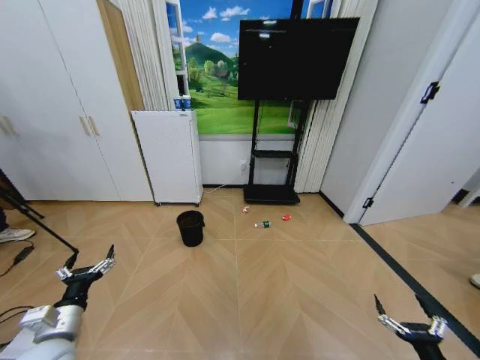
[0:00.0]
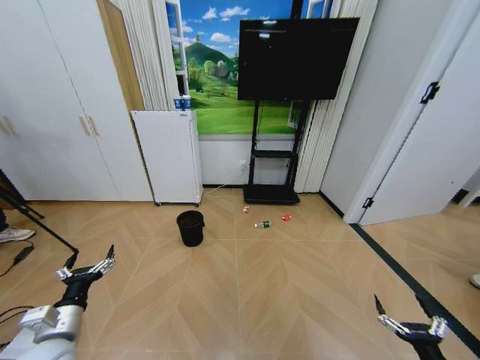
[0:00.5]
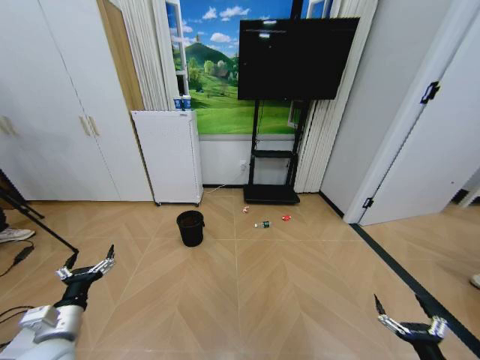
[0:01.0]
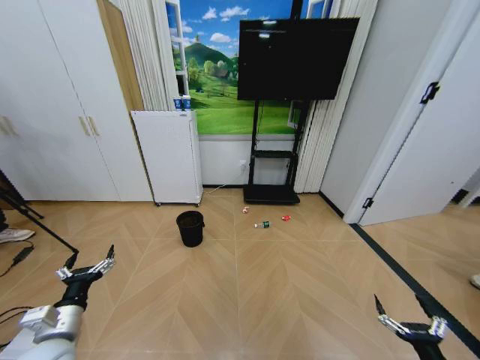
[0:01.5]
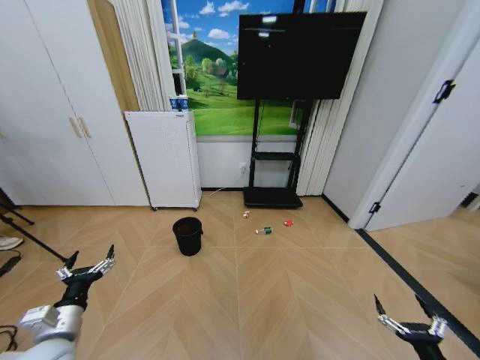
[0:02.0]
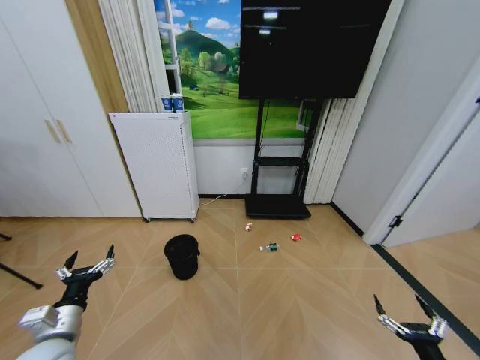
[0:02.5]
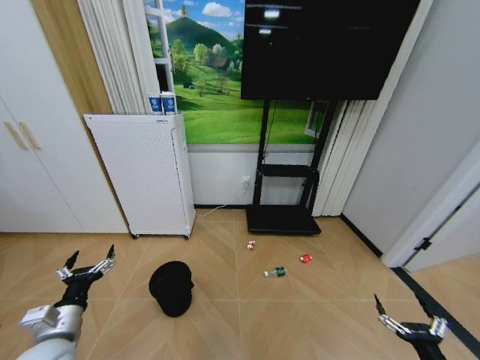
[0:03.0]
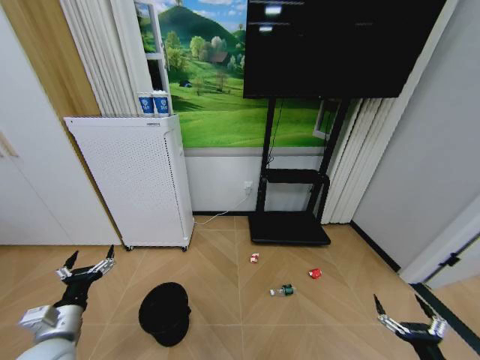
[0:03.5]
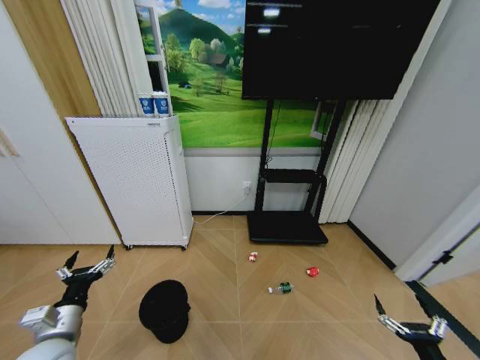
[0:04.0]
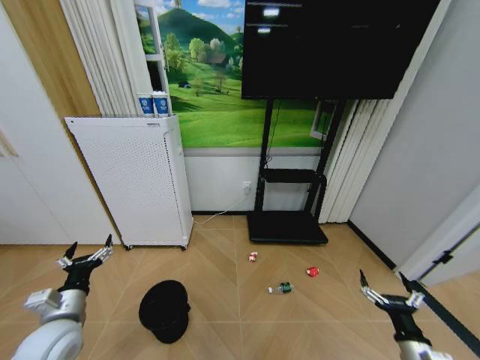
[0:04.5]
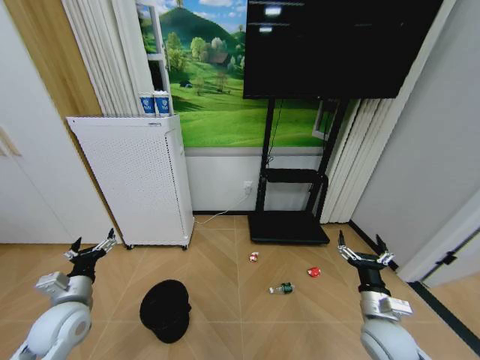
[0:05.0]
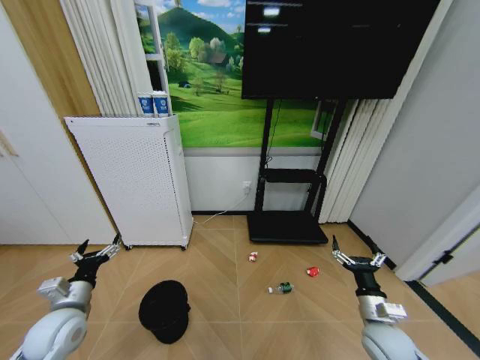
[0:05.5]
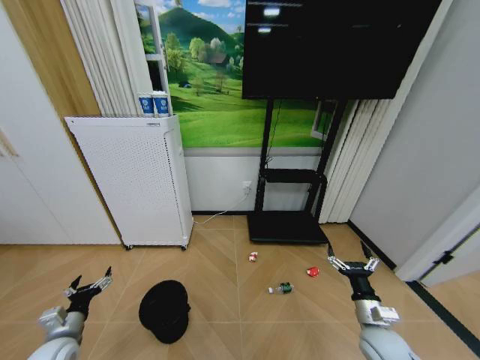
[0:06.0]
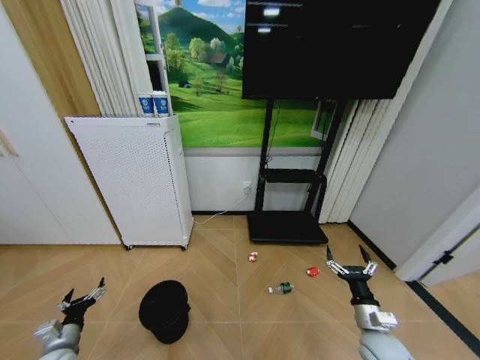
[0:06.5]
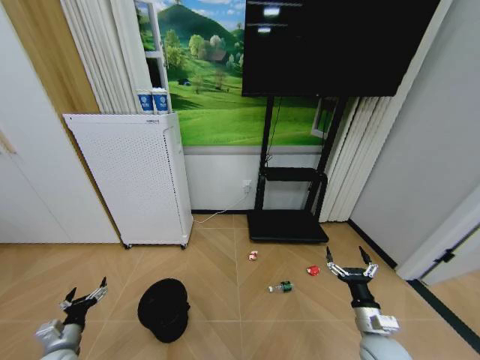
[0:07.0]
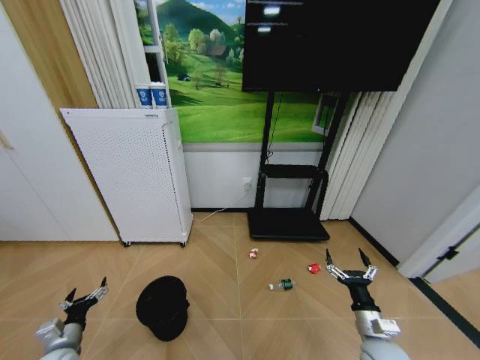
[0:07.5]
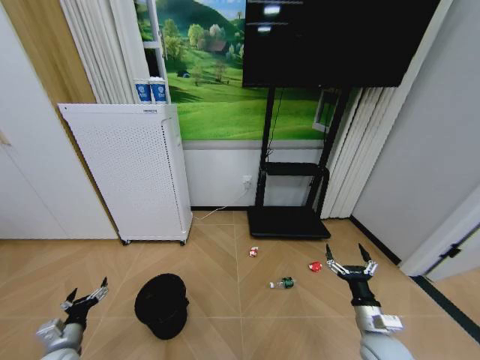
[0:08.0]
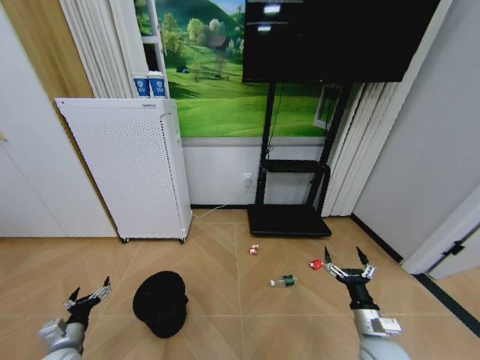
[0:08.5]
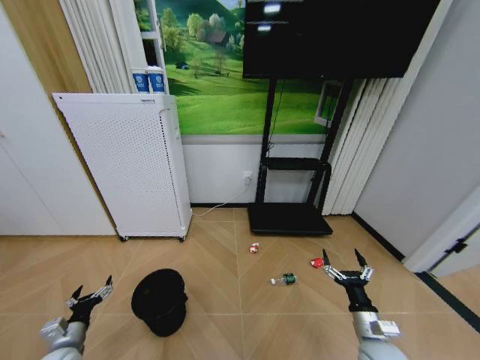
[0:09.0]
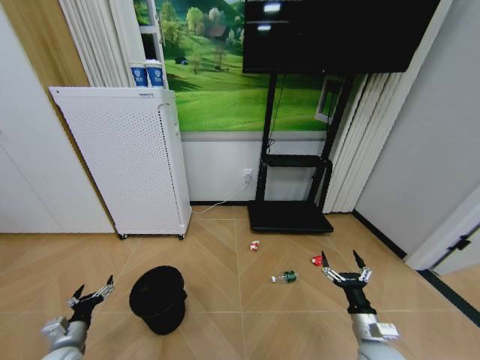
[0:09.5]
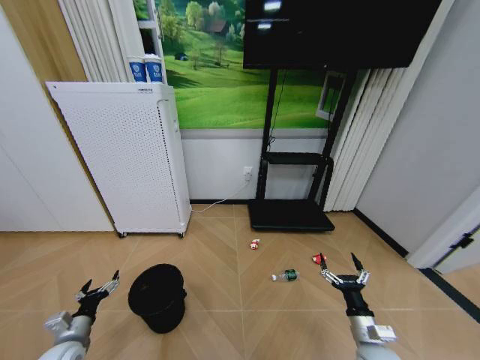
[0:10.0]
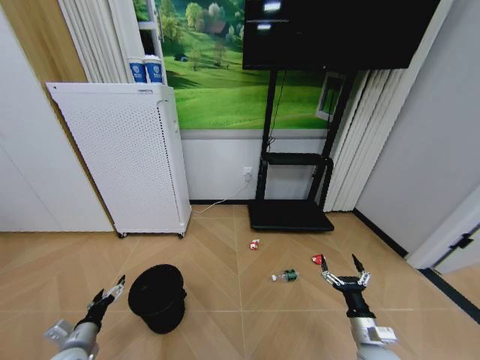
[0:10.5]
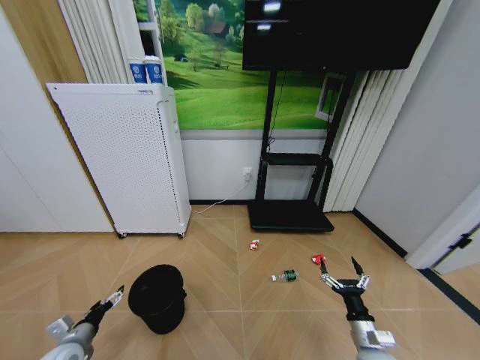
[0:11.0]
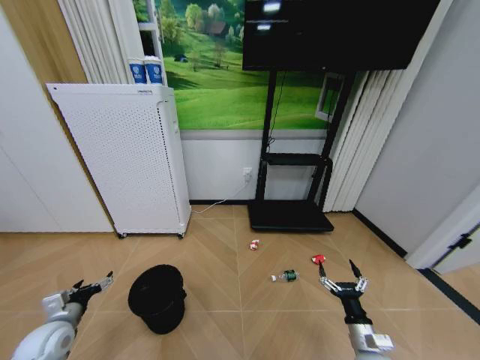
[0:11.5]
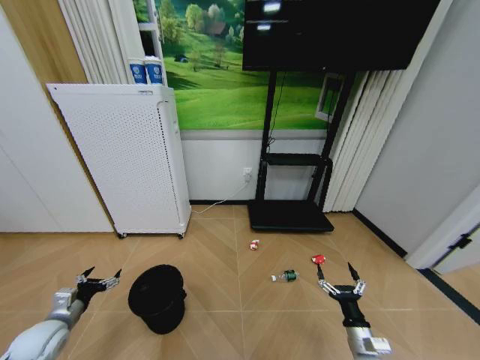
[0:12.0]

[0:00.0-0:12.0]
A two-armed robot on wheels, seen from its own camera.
Task of the whole recording: Pick up the trash bin and place the garbage on the floor into it.
4.0 to 6.0 s: The right gripper is displaced forward and to the left by approximately 20 cm. The left gripper heads downward and to the left, covering approximately 10 cm.
6.0 to 8.0 s: The grippers stay close to where they were, moving slightly.
10.0 to 12.0 s: The left gripper goes some 5 cm upward.

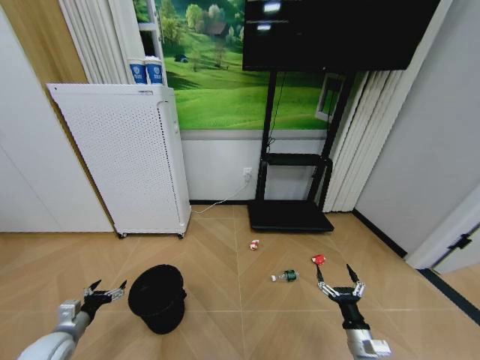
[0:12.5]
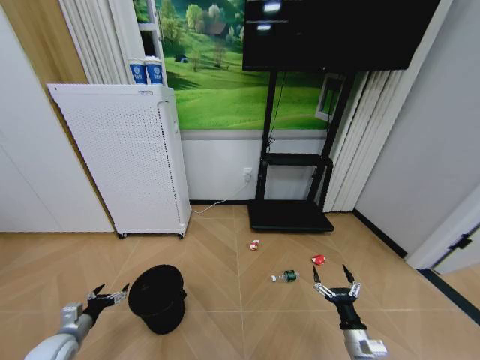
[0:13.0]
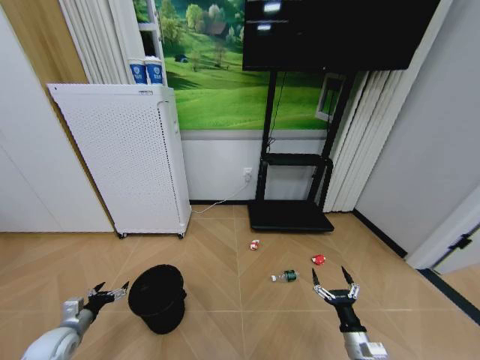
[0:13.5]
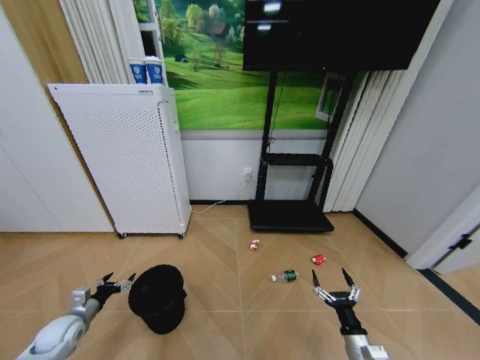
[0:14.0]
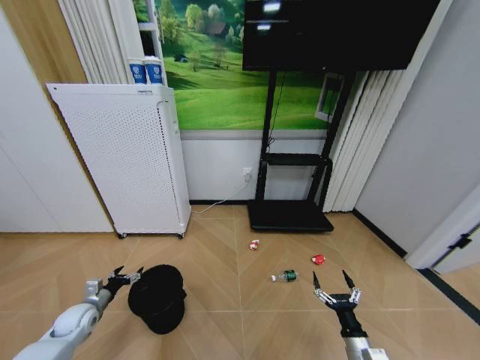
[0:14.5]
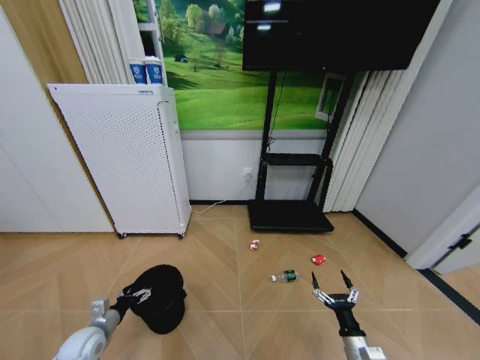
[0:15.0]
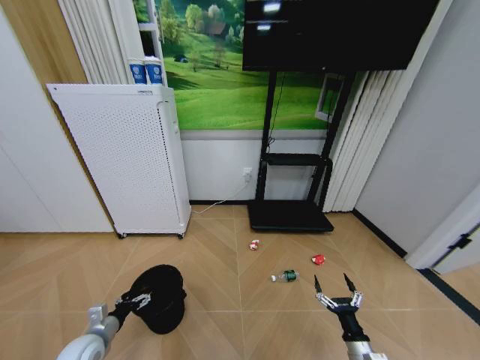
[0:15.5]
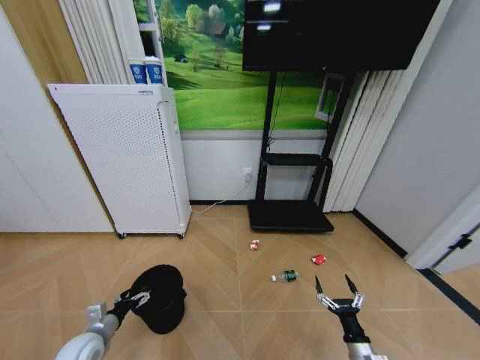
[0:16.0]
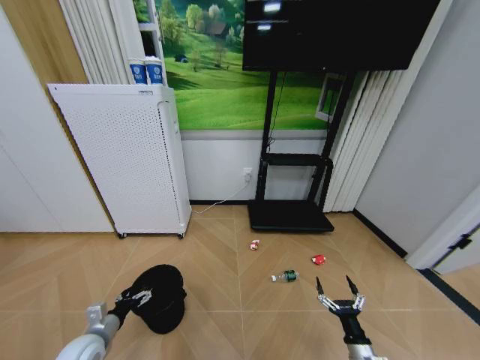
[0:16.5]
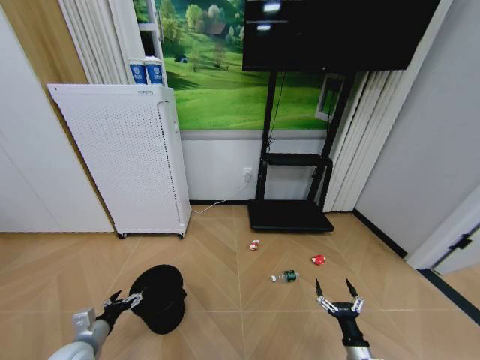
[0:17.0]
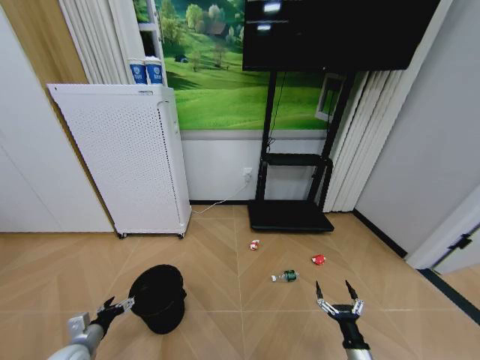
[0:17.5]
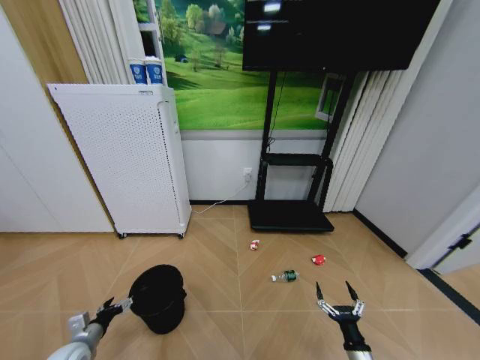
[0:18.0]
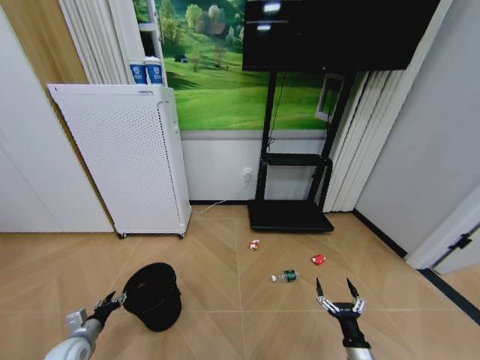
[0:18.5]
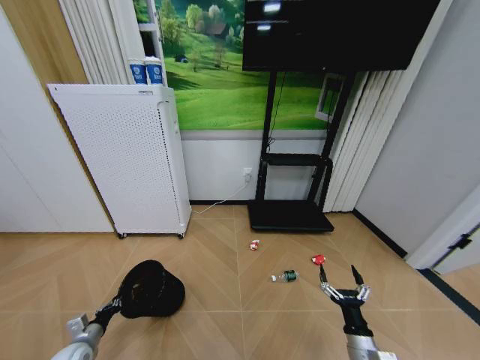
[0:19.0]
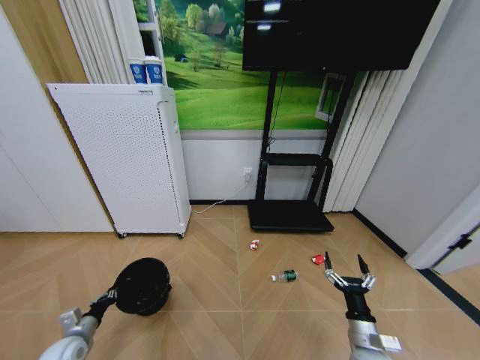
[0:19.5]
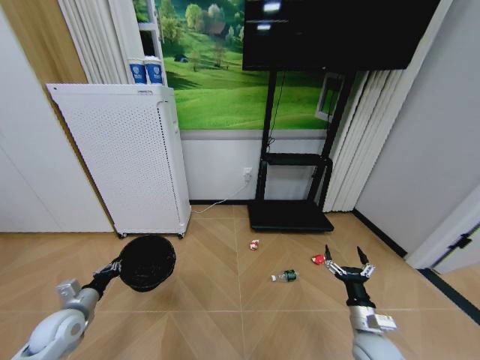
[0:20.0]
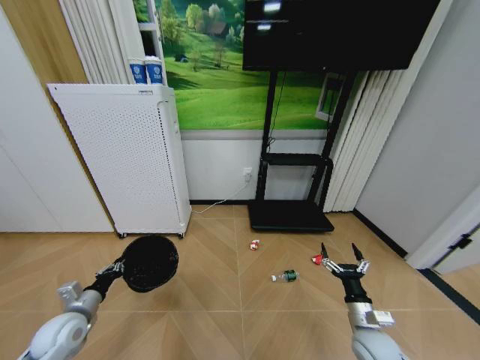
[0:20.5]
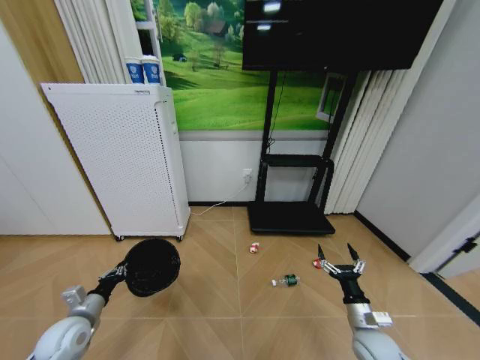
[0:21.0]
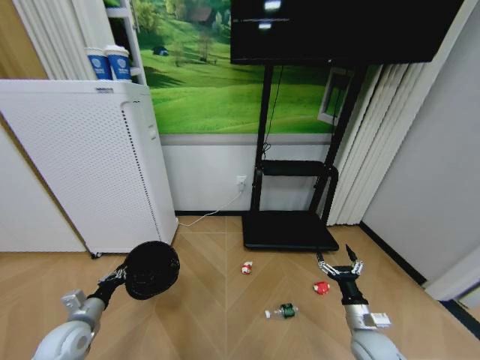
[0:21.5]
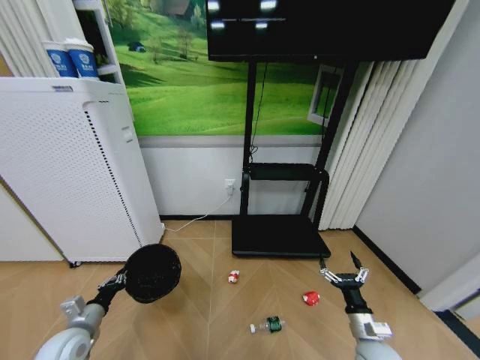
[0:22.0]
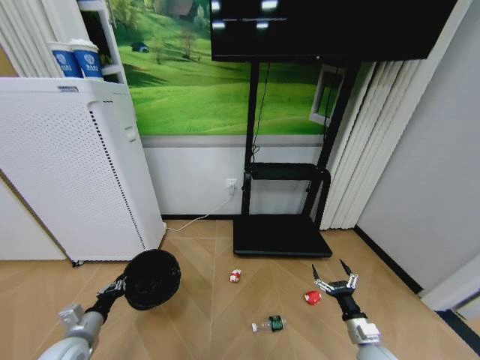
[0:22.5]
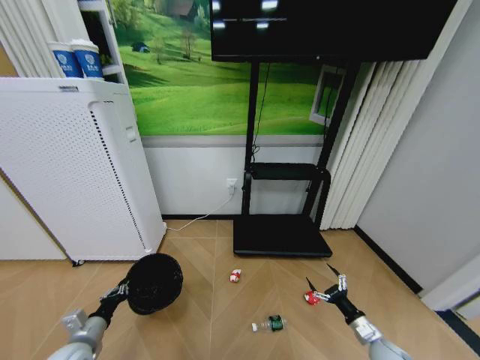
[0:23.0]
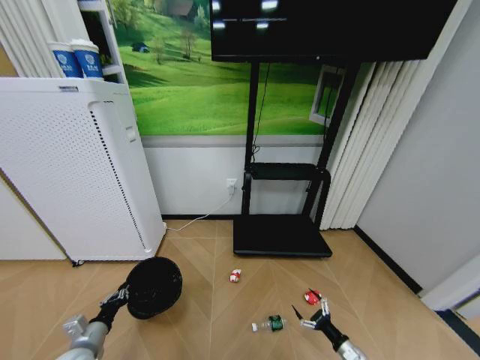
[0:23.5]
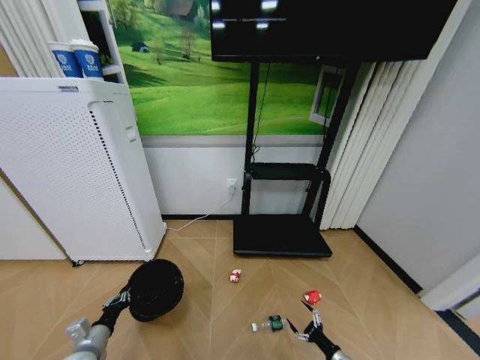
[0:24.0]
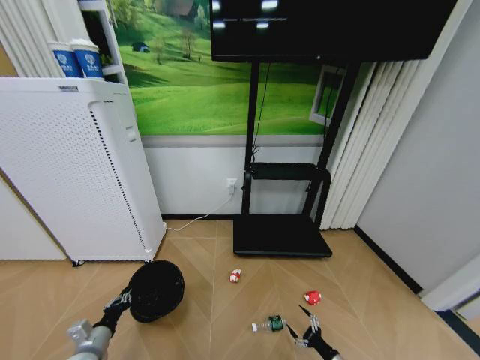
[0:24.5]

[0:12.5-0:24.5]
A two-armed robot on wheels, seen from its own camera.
Task of the whole recording: Pick up the trash bin and place the garbage on the floor into it.
12.5 to 14.5 s: The left gripper goes about 10 cm forward.
14.5 to 16.5 s: The left gripper goes approximately 10 cm backward and to the right.
16.5 to 18.5 s: The left gripper goes some 10 cm to the left and downward.
18.5 to 20.5 s: The right gripper goes approximately 10 cm upward and forward, while the left gripper travels upward by about 10 cm, and closes.
20.5 to 22.5 s: The right gripper goes approximately 5 cm downward. Meanwhile the left gripper ends up roughly 5 cm from where it was.
22.5 to 24.5 s: The left gripper shifts by roughly 5 cm; the right gripper shifts about 15 cm downward.

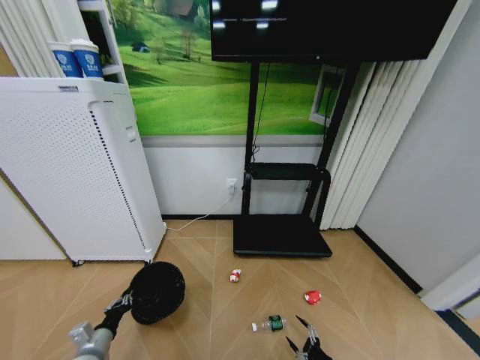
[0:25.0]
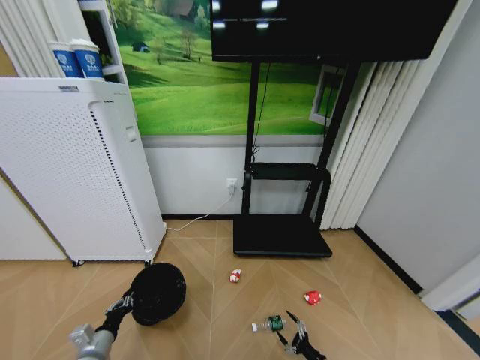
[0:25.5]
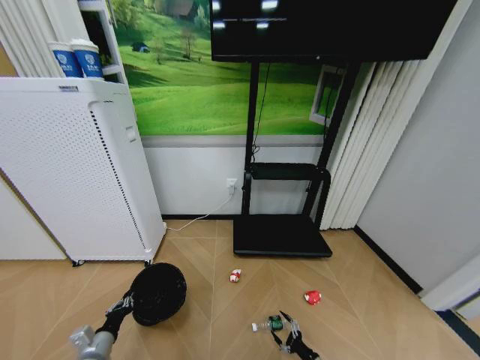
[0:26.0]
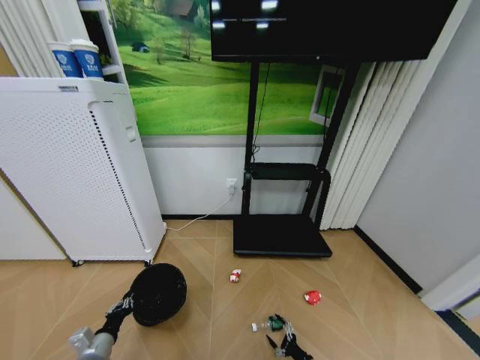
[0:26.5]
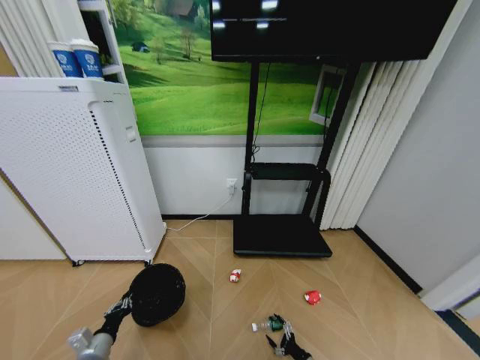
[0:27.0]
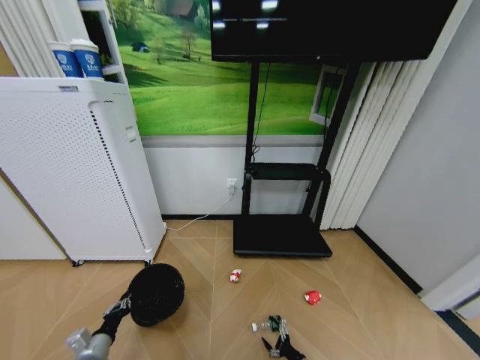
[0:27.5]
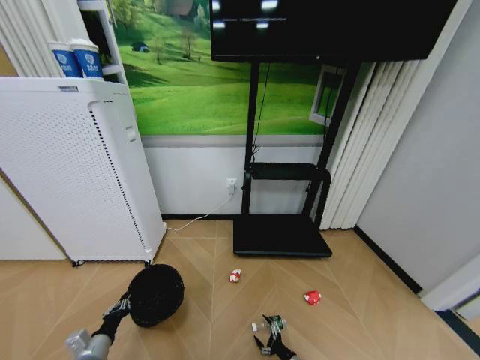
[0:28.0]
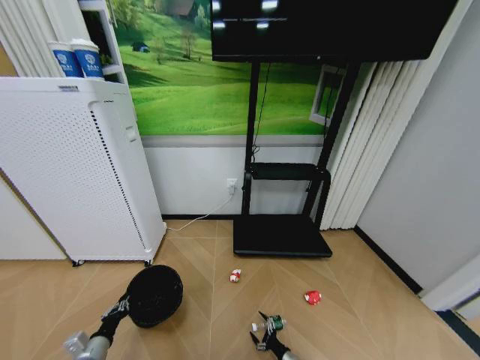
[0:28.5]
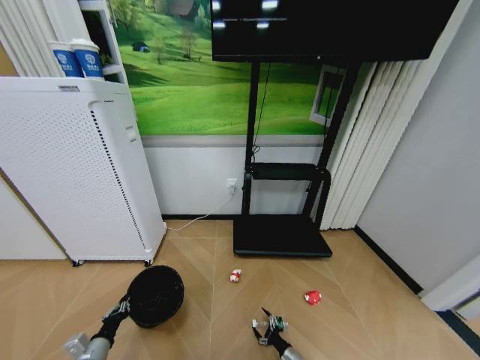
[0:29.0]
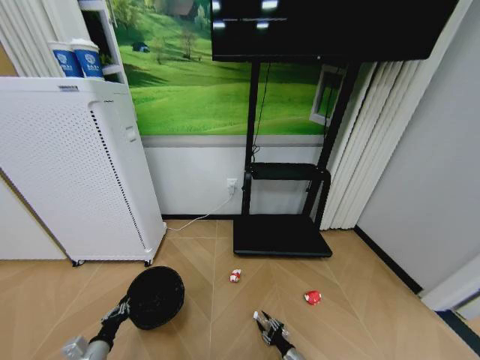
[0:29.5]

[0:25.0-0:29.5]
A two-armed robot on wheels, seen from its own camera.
Task of the whole recording: Pick up the trash bin and place the garbage on the floor into it.
25.0 to 27.0 s: The right gripper shifts approximately 5 cm to the left.
27.0 to 29.5 s: The right gripper moves to the left, roughly 5 cm, and closes its fingers.
